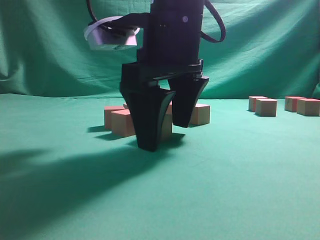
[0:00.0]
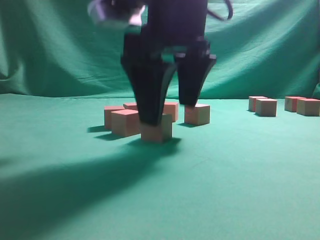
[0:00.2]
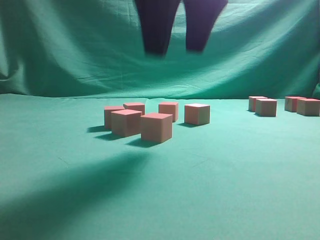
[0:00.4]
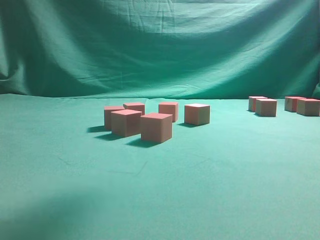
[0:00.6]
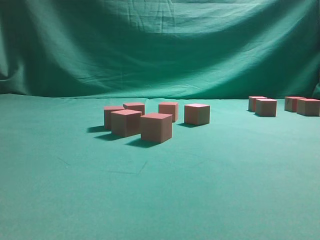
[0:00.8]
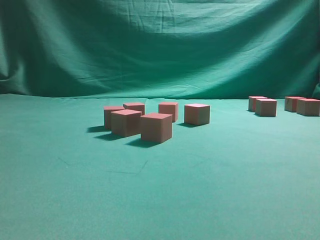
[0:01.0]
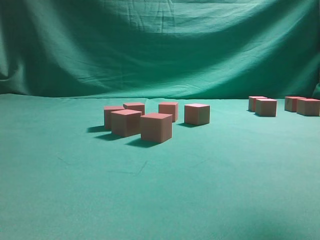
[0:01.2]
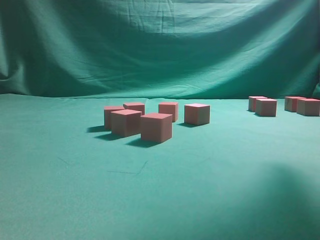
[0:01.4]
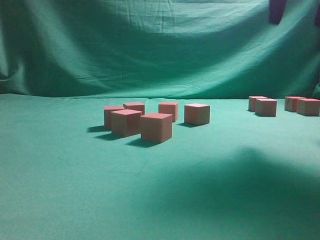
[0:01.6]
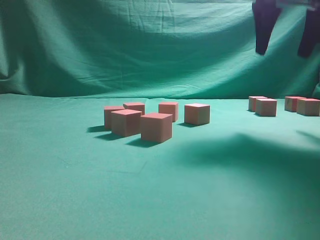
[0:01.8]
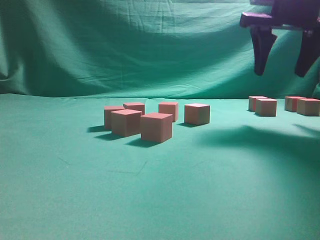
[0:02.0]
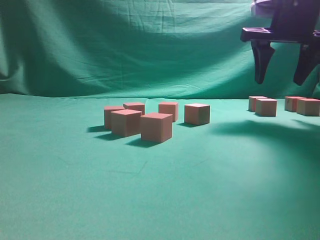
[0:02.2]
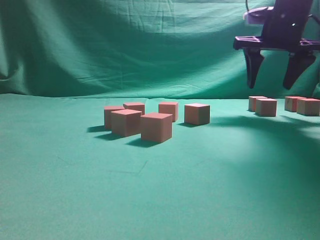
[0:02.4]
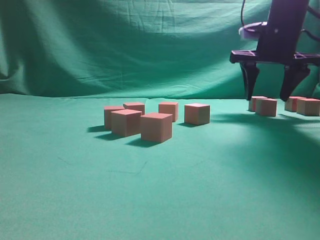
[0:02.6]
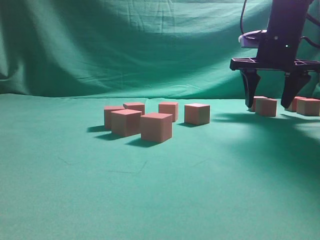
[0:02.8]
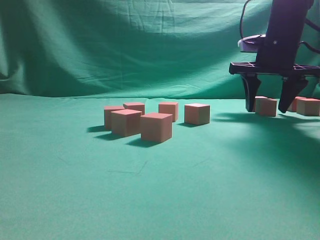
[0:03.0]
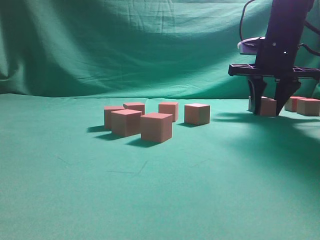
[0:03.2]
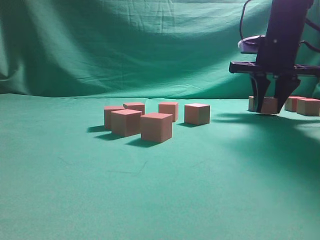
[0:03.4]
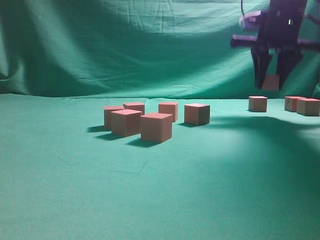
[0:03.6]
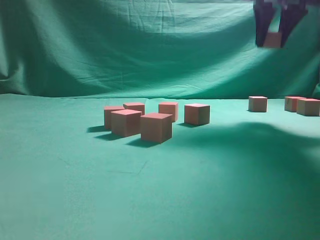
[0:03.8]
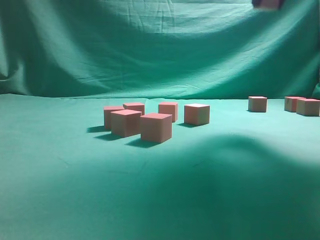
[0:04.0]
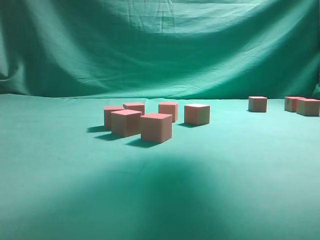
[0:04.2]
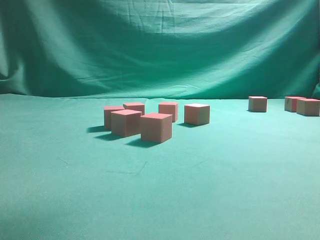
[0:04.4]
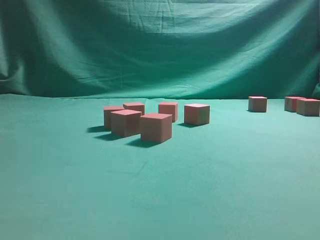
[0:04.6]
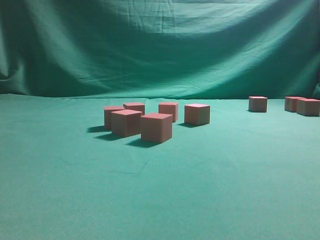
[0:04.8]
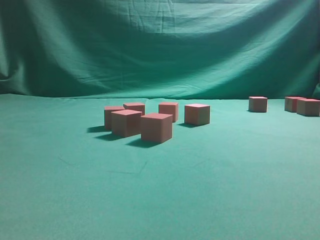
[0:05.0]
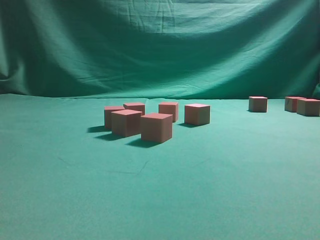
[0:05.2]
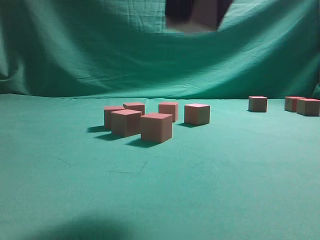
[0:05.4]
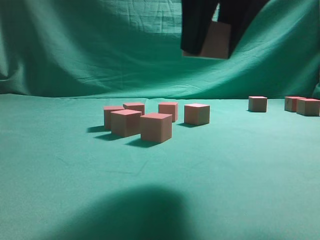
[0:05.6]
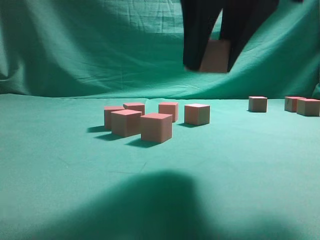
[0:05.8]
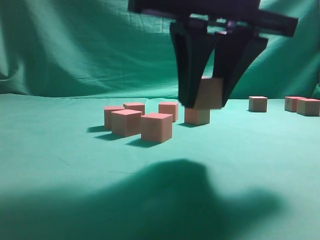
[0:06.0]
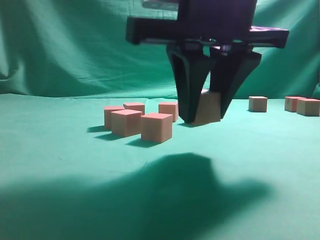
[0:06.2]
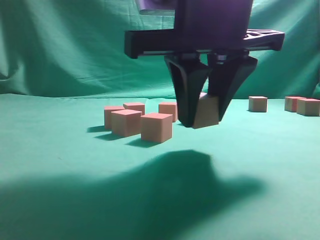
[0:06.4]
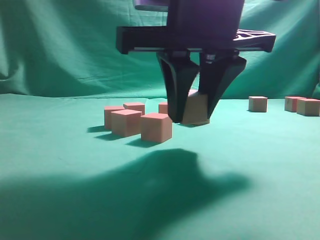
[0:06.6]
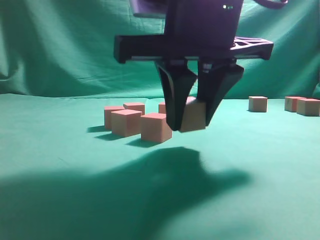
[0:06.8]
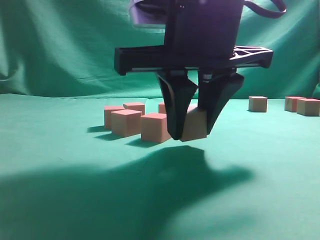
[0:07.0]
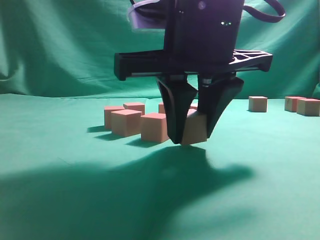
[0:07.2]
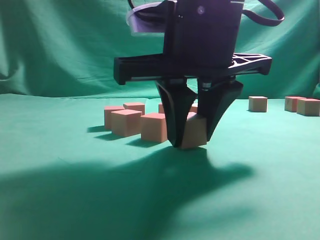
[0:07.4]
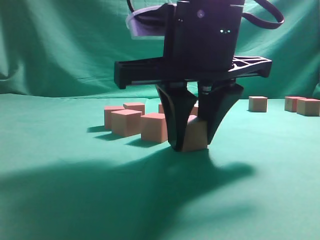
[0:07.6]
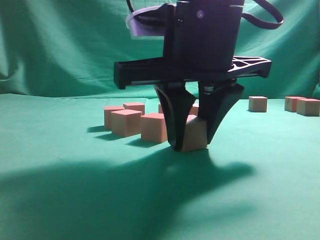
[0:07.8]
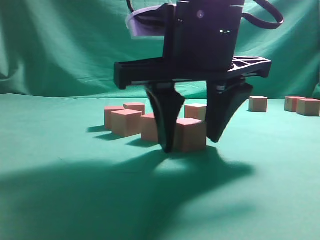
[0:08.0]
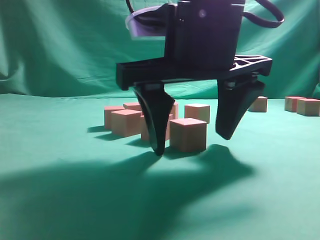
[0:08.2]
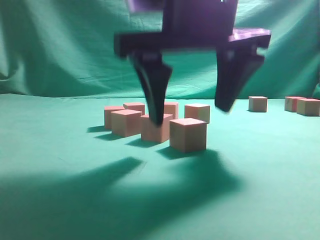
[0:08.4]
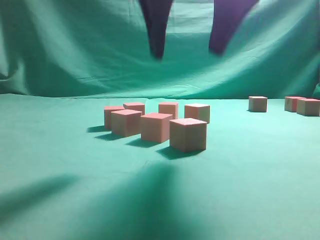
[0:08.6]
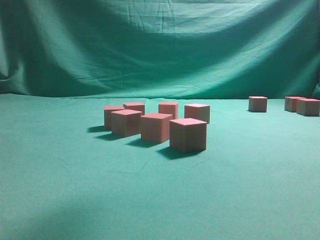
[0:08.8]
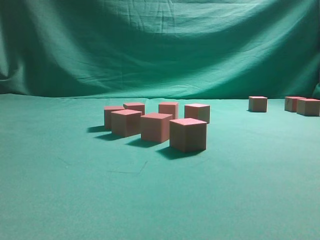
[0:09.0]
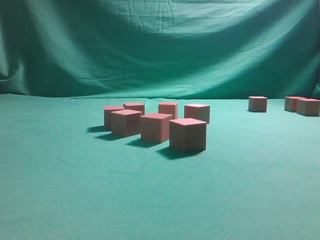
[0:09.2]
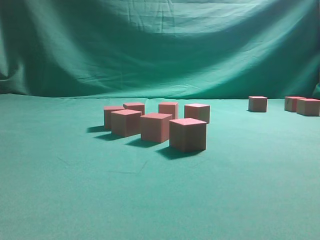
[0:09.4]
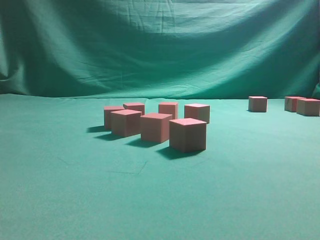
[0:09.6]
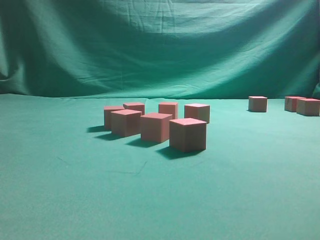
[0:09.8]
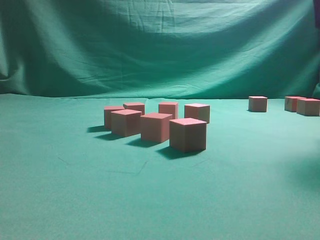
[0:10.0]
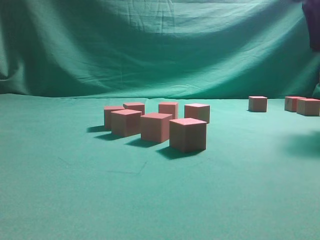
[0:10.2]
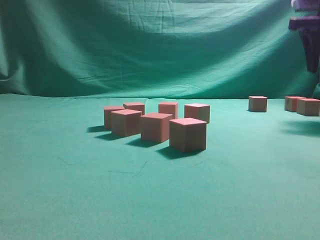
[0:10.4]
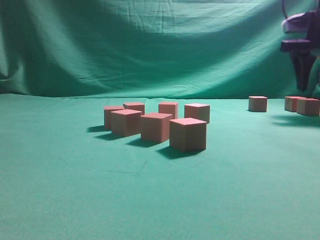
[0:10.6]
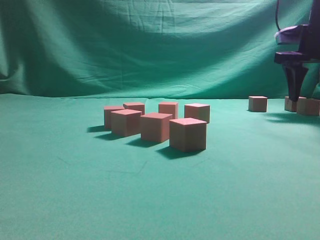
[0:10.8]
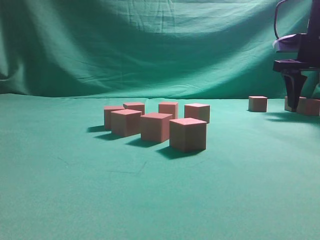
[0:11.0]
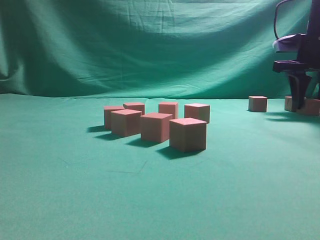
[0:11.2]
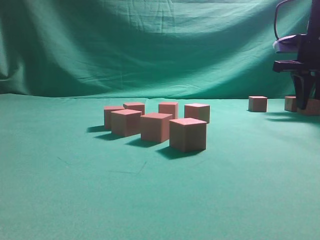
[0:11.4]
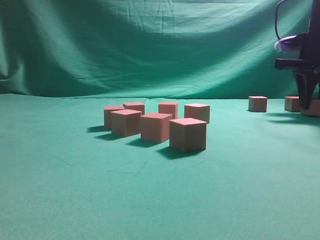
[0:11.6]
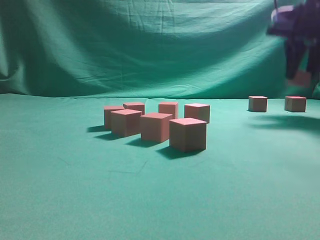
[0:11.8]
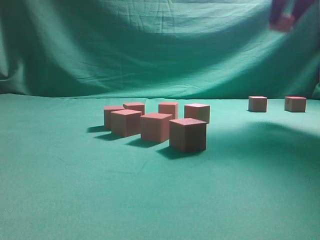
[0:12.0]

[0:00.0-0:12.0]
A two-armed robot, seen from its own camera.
Task of the whole recording: pick up the multiple cubes in two columns one by one and place them in another position on the table.
Step, 0.6 to 3.8 s: Pick up the block on the table.
Step, 4.0 to 8.6 s: Place the block at the correct position to assemble the letter S.
Step, 8.8 to 11.8 s: Pick up the block on the table.
0.0 to 1.6 s: The right gripper shifts approximately 25 cm to the right and upward.
1.6 to 3.0 s: The right gripper heads downward and forward, covering roughly 20 cm.
3.0 to 4.4 s: The right gripper is displaced upward and backward by some 30 cm, and closes.
4.4 to 6.0 s: The right gripper heads downward, covering roughly 20 cm.
7.6 to 9.0 s: The right gripper shifts roughly 25 cm upward, and opens up.
9.0 to 10.4 s: The right gripper goes approximately 35 cm forward, to the right and downward.
10.4 to 12.0 s: The right gripper moves upward and to the left, roughly 10 cm, and closes up.

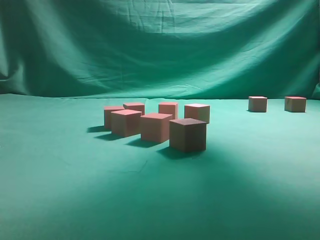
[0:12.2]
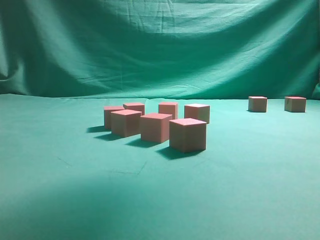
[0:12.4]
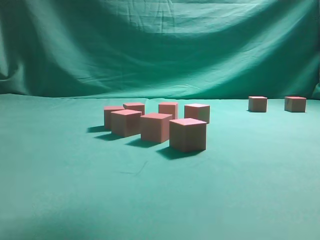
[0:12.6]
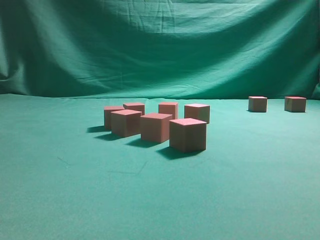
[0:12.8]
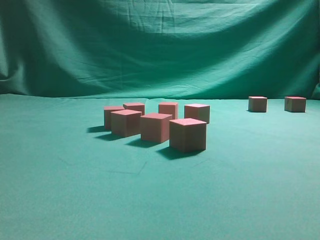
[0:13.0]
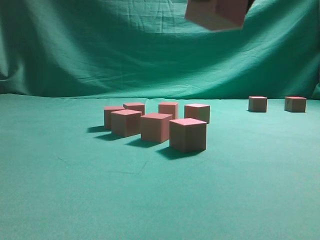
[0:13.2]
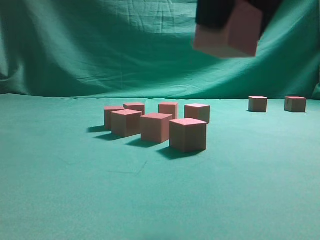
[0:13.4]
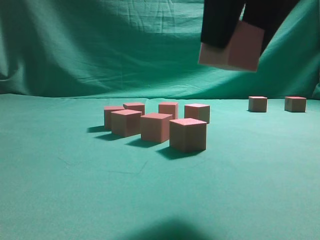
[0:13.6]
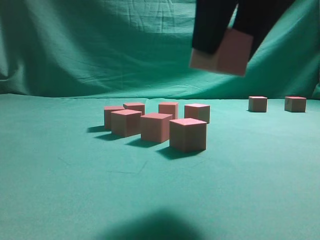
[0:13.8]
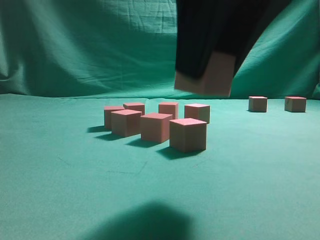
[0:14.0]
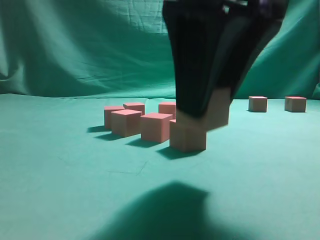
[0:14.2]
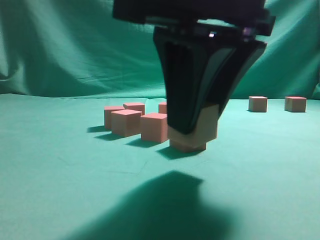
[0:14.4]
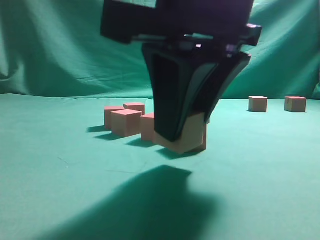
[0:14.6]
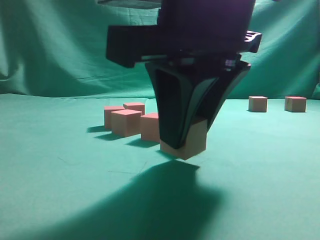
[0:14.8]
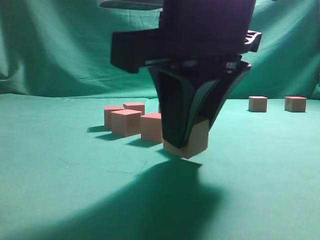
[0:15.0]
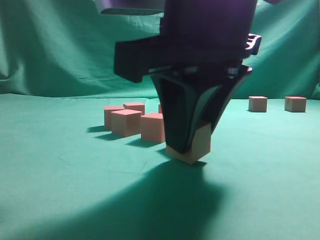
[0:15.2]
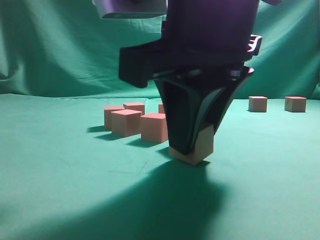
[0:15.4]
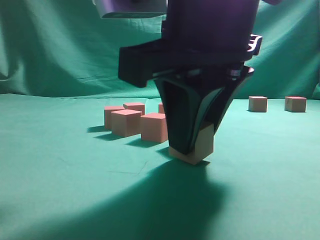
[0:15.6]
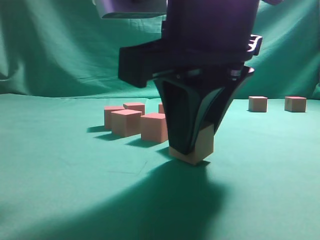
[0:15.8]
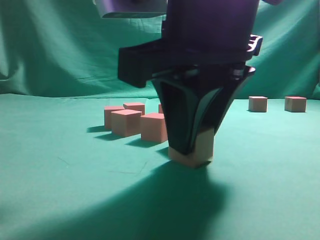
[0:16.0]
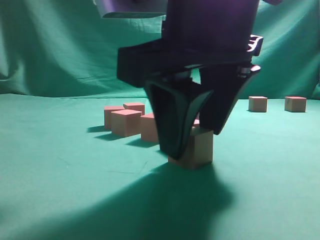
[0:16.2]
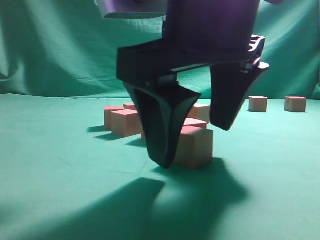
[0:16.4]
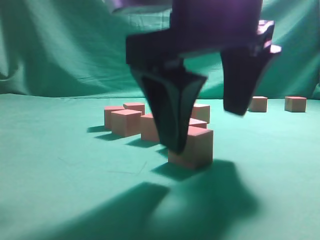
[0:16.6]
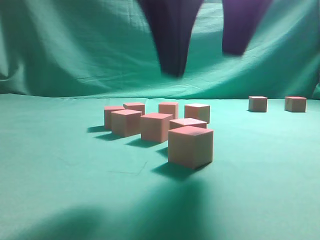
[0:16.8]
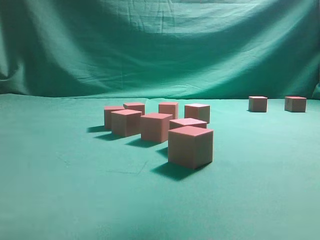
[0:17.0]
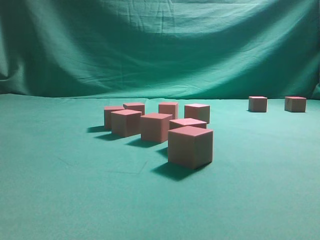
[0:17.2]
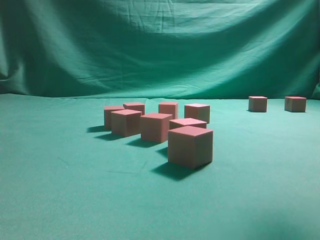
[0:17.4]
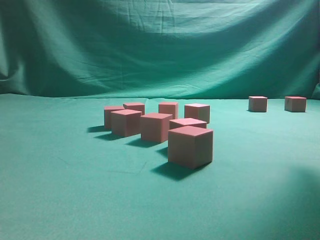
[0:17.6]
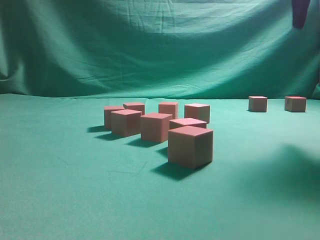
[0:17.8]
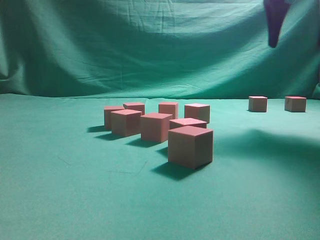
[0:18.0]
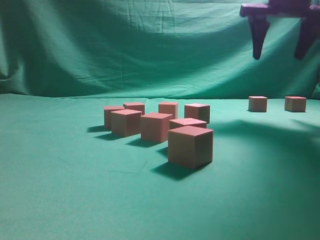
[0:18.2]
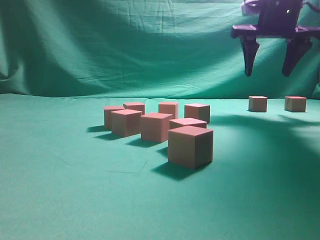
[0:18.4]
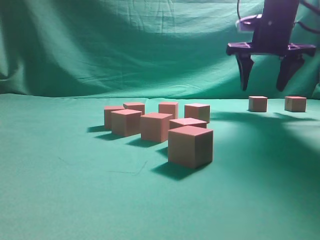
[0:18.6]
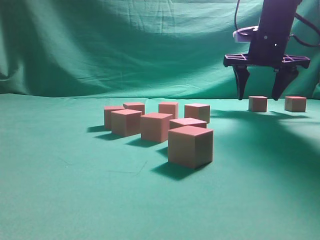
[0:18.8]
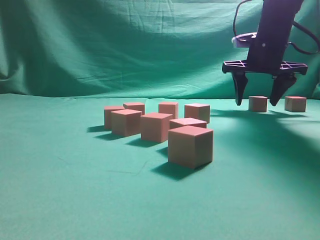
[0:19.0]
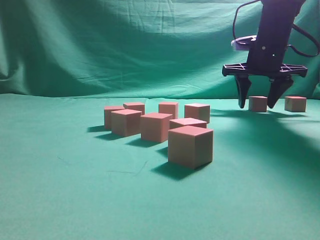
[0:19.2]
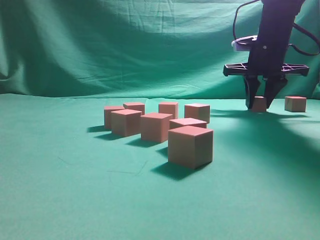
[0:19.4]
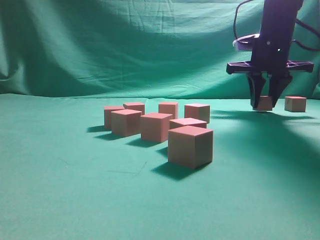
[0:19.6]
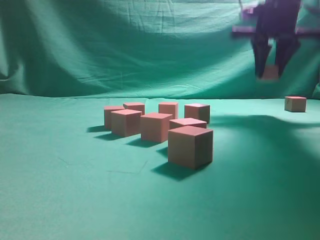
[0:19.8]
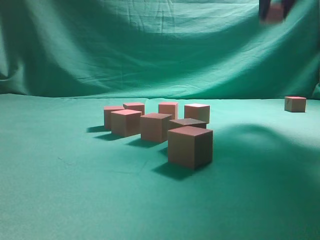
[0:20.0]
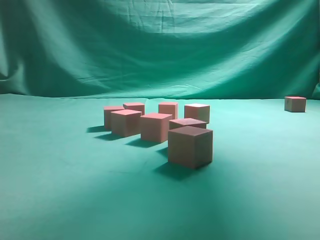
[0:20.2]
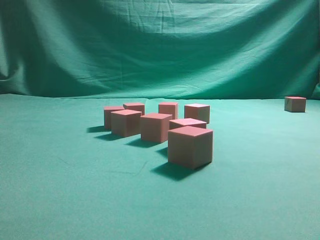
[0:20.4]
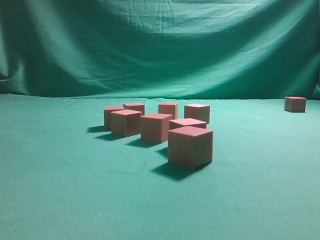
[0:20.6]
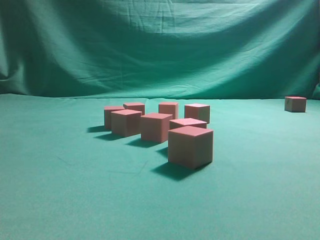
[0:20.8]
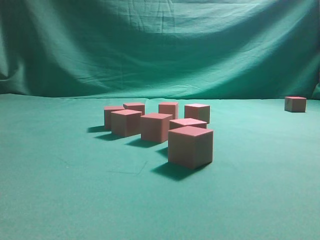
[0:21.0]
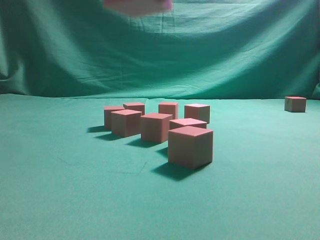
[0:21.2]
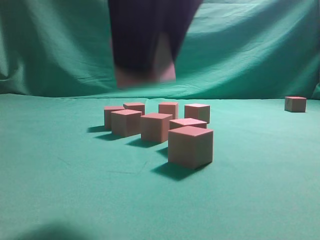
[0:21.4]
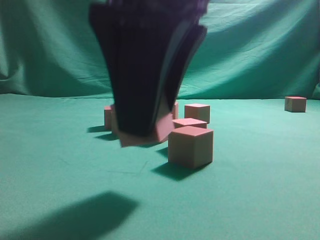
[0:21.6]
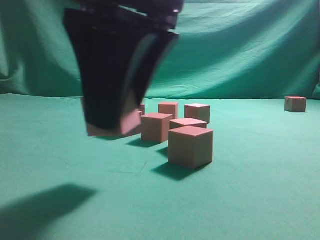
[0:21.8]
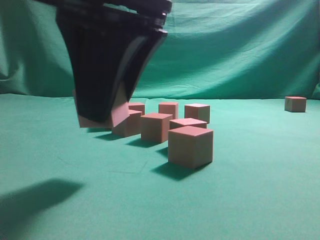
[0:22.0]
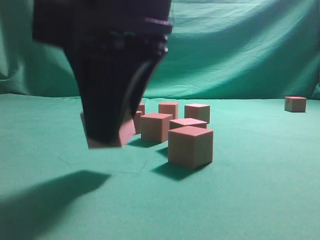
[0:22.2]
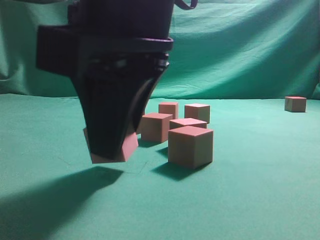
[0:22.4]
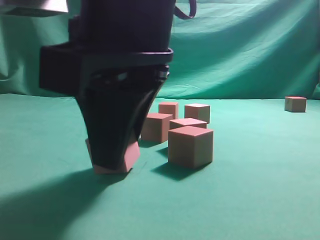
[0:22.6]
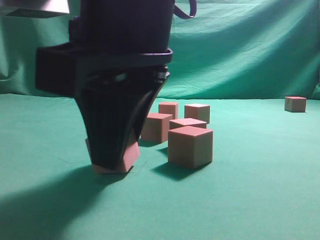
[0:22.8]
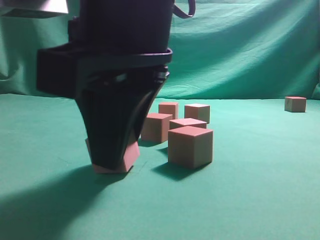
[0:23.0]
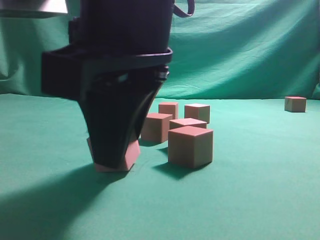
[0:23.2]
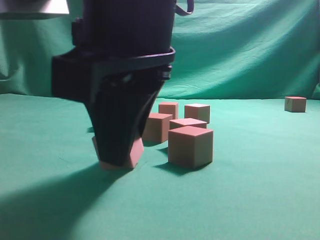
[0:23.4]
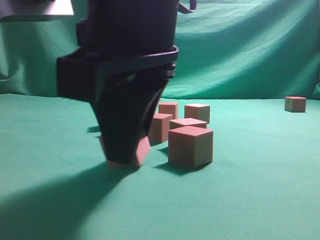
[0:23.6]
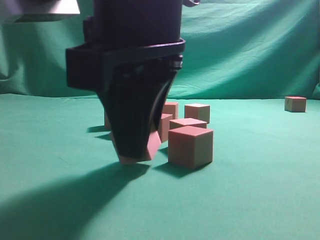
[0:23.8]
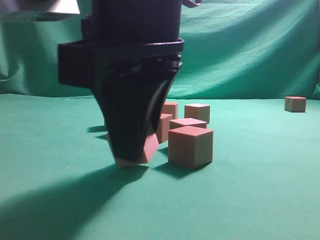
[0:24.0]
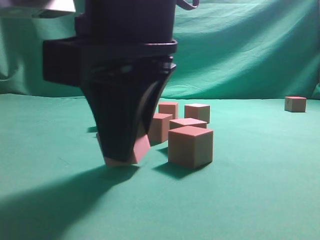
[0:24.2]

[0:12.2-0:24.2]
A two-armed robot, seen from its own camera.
Task of the whole recording: pick up the multiple cubes in two columns one by one and place them in another position on the table.
Step, 12.2 to 16.8 s: Place the block at the correct position to assemble the letter S.
Step, 17.0 to 19.8 s: Pick up the block on the table.
12.2 to 13.8 s: The right gripper shifts about 25 cm backward, downward and to the left.
13.8 to 15.2 s: The right gripper heads downward, covering approximately 5 cm.
15.2 to 16.6 s: The right gripper opens up.
16.6 to 18.2 s: The right gripper travels forward and to the right by about 30 cm.
18.2 to 19.8 s: The right gripper goes downward and returns, some 10 cm each way, and closes up.
19.8 to 21.2 s: The right gripper travels backward and to the left by roughly 35 cm.
21.2 to 22.6 s: The right gripper heads downward, covering roughly 10 cm.
22.6 to 24.2 s: There are only small adjustments of the grippers.
